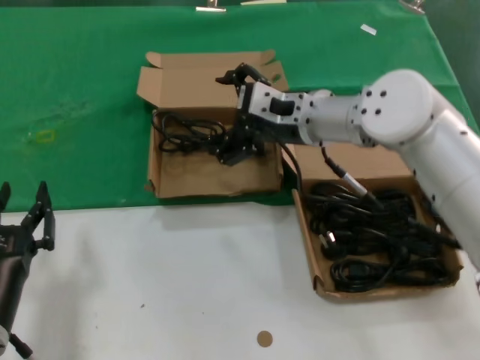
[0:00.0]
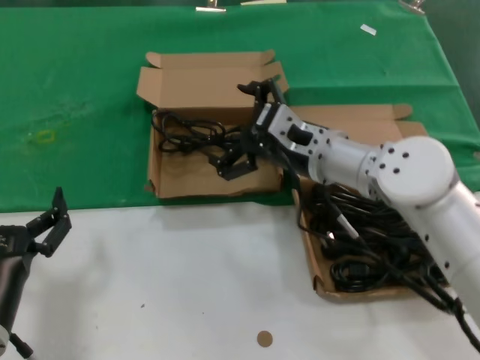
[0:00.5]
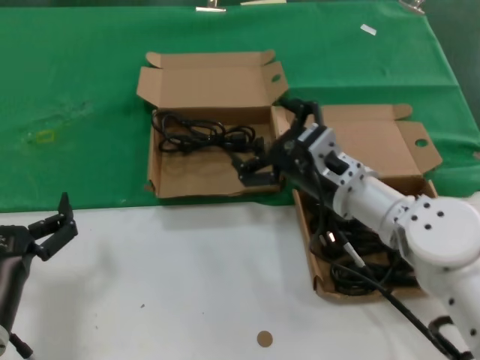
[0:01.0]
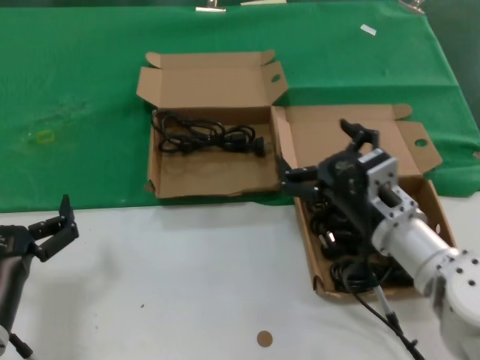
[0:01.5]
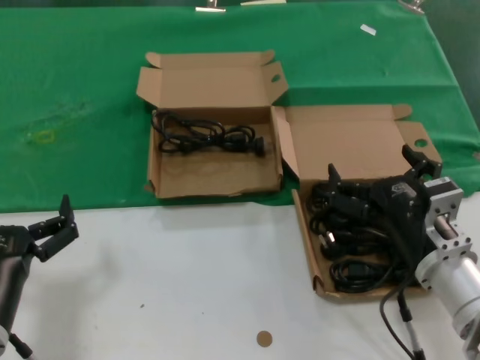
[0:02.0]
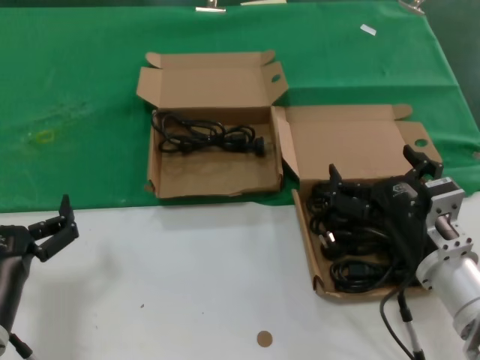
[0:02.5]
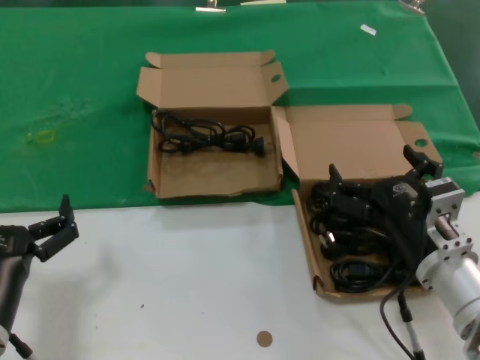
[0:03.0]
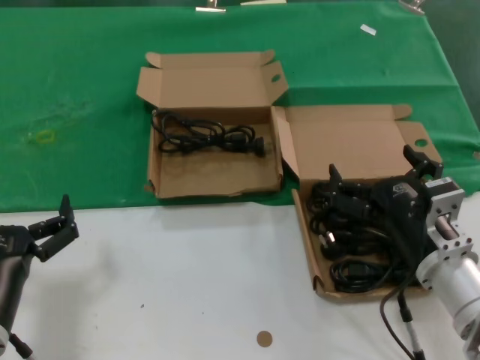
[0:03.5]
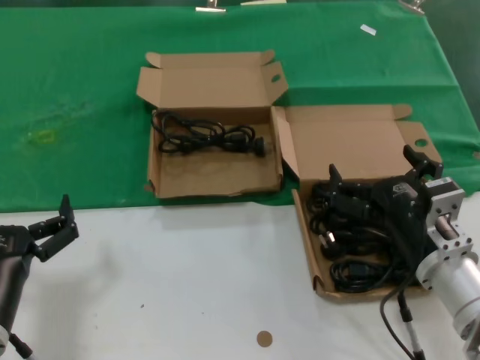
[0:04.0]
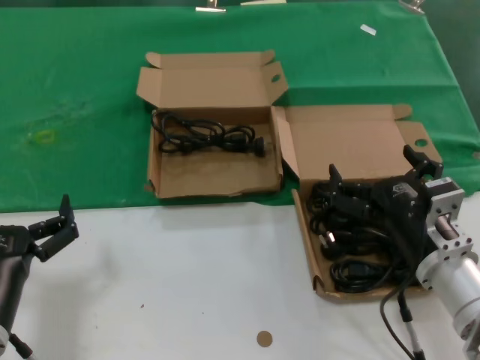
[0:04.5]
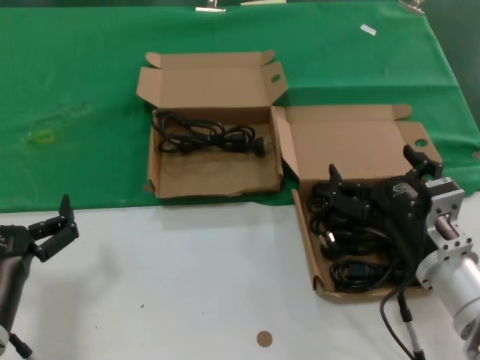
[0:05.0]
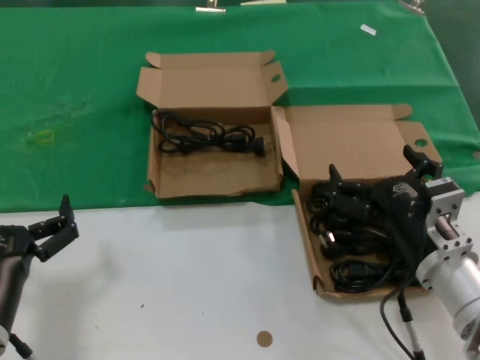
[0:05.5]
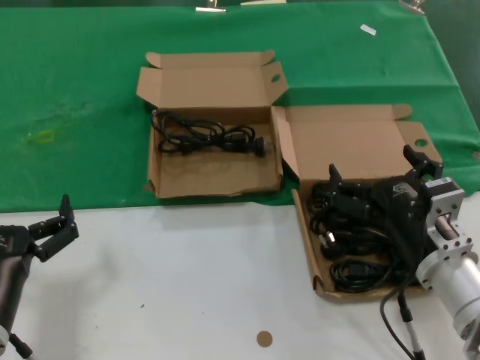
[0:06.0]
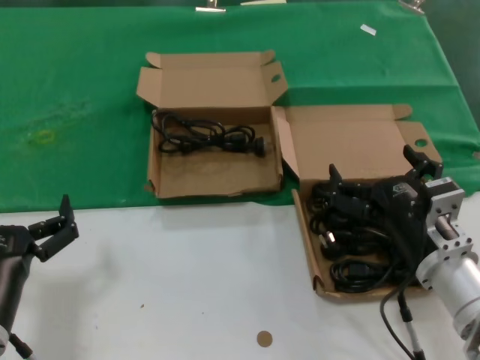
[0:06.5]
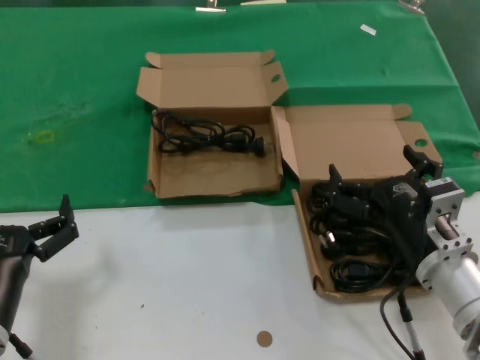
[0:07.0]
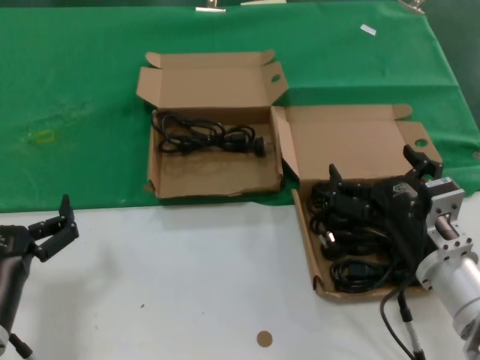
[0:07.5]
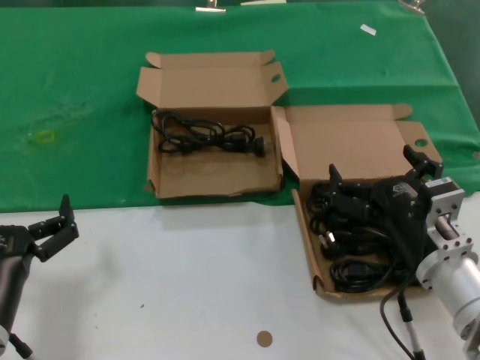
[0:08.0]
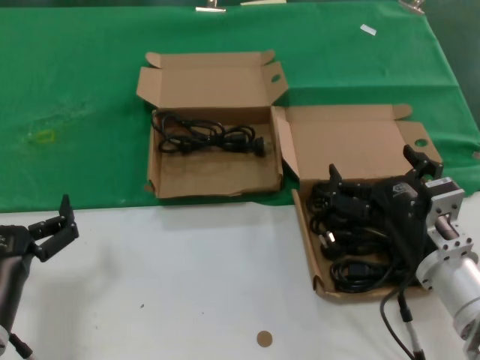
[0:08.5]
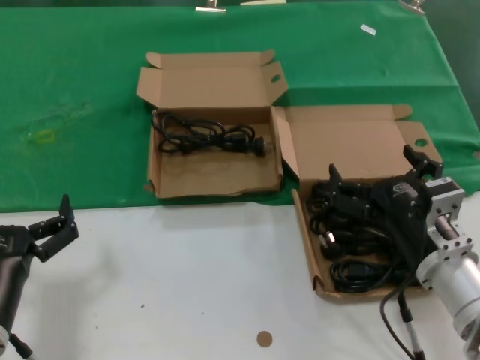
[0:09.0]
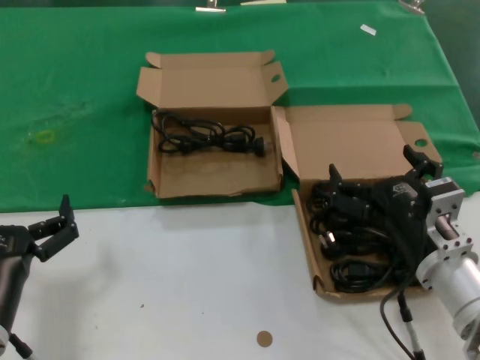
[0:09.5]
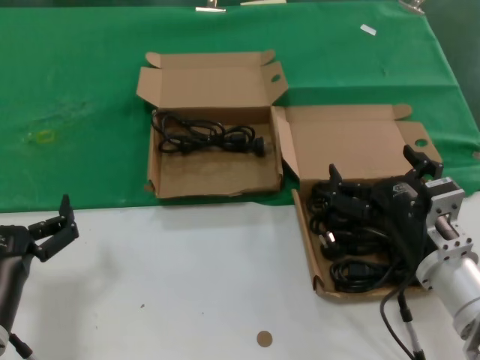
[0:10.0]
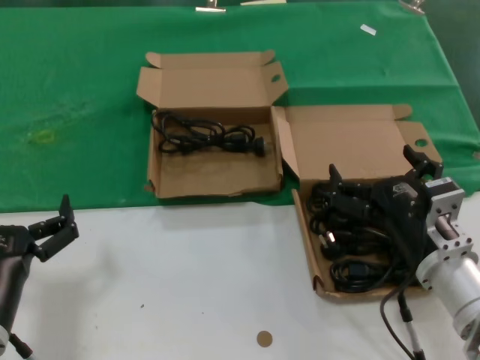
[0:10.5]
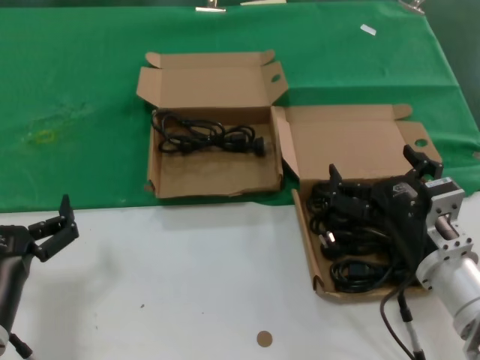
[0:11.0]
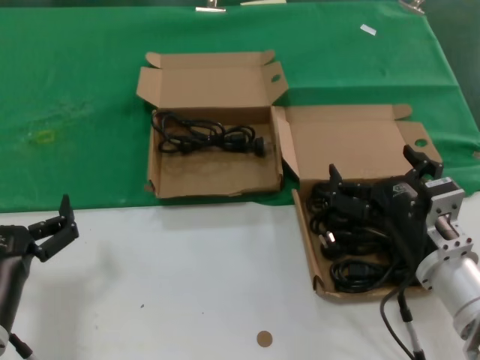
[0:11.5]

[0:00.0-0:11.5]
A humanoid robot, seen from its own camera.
Task of the whole recording: take the parts from the box containing them and put them into an empty box.
0:00.0 to 0:02.0: The right hand heads backward, downward and to the right, covering roughly 25 cm.
0:02.0 to 0:11.5: Neither hand changes place.
